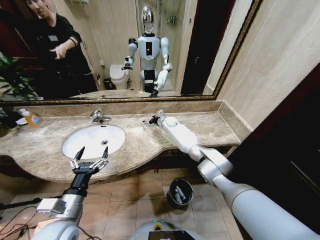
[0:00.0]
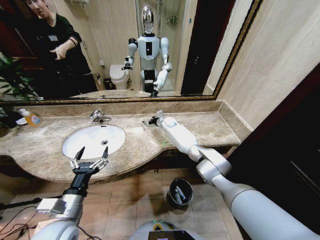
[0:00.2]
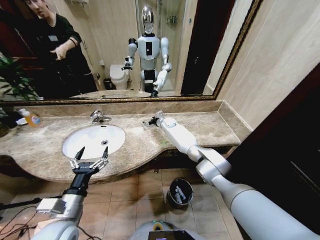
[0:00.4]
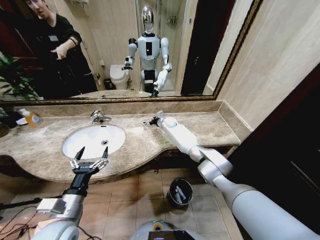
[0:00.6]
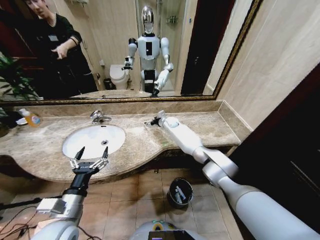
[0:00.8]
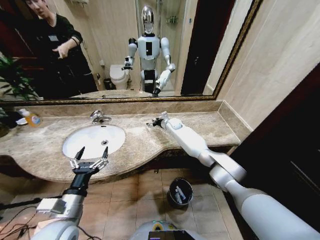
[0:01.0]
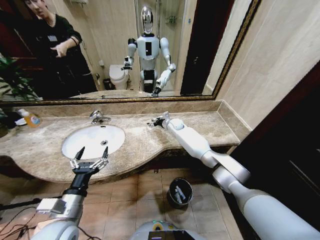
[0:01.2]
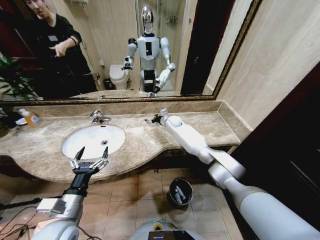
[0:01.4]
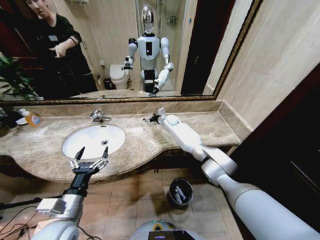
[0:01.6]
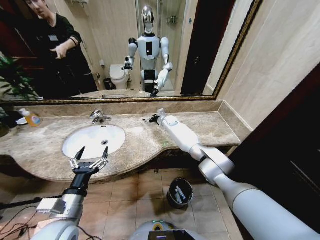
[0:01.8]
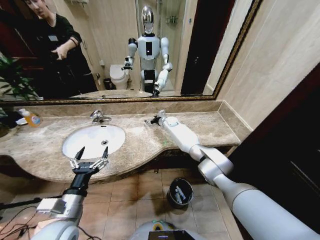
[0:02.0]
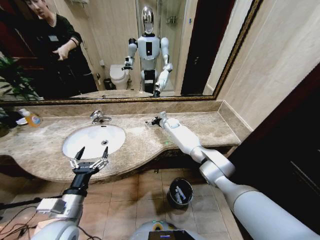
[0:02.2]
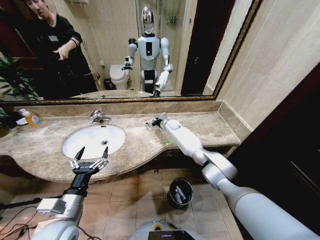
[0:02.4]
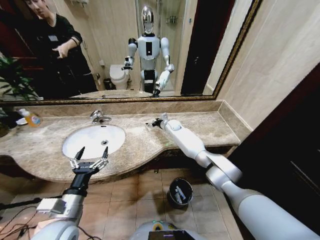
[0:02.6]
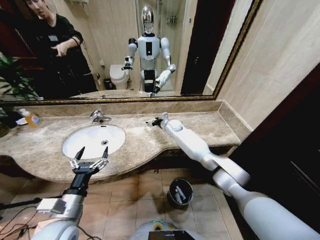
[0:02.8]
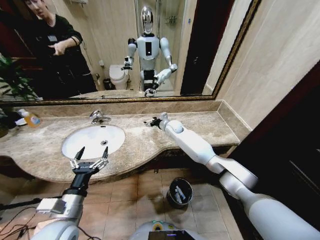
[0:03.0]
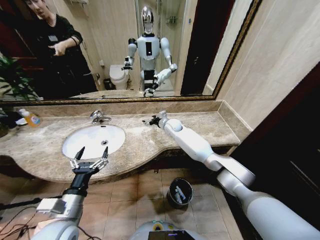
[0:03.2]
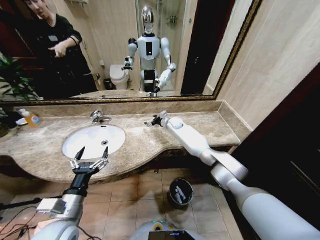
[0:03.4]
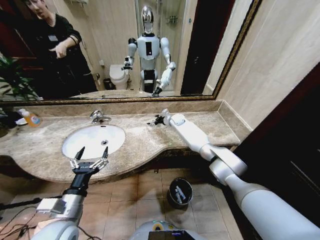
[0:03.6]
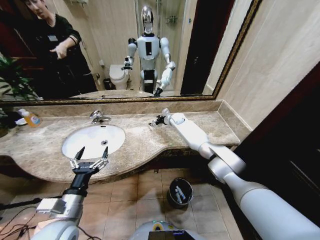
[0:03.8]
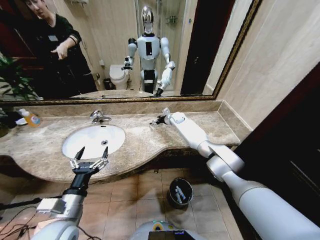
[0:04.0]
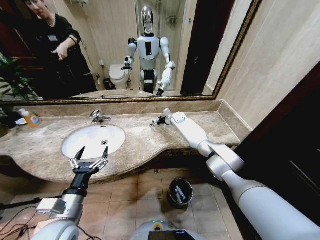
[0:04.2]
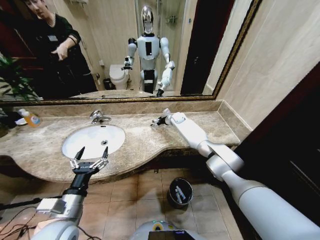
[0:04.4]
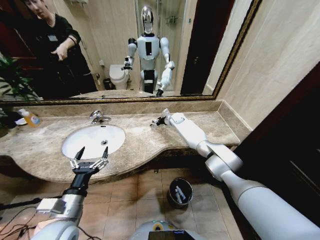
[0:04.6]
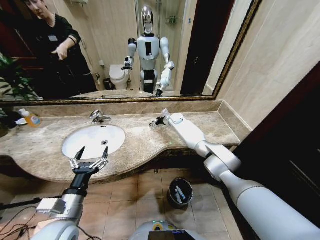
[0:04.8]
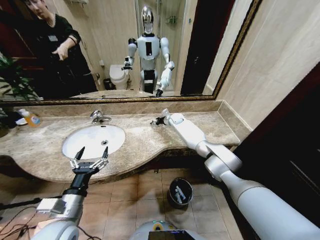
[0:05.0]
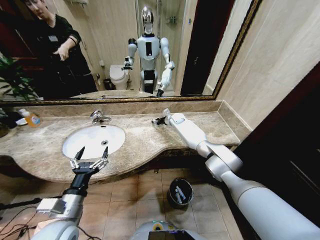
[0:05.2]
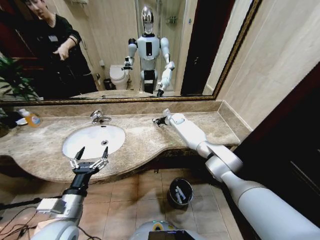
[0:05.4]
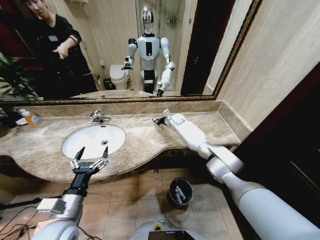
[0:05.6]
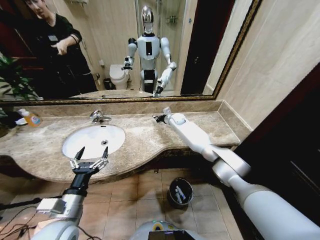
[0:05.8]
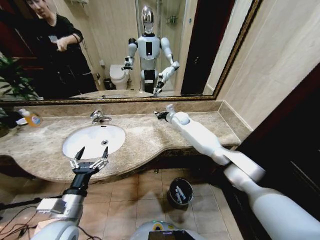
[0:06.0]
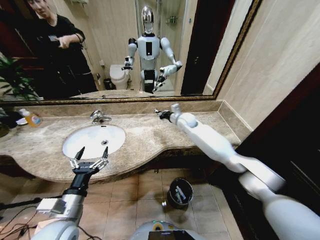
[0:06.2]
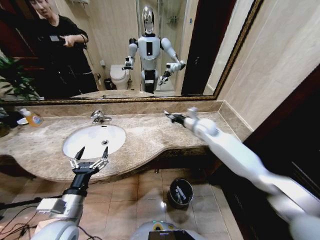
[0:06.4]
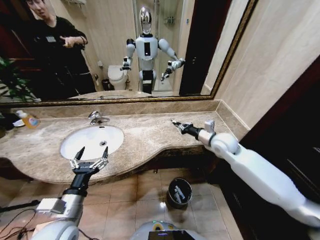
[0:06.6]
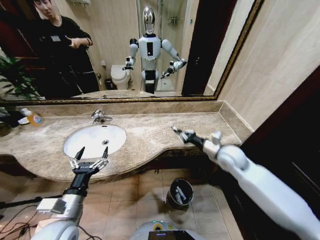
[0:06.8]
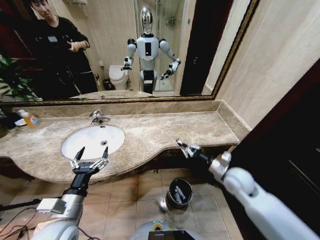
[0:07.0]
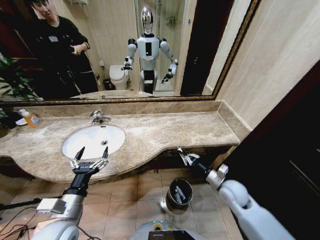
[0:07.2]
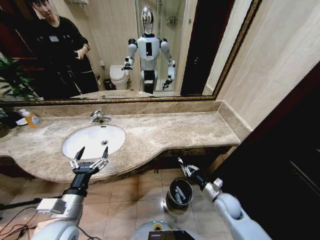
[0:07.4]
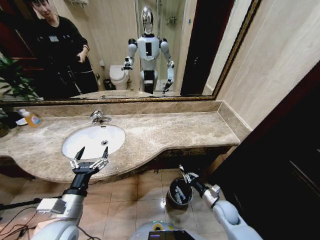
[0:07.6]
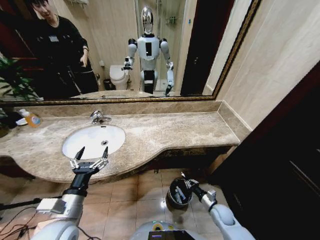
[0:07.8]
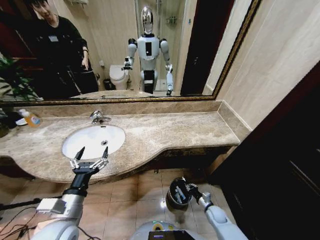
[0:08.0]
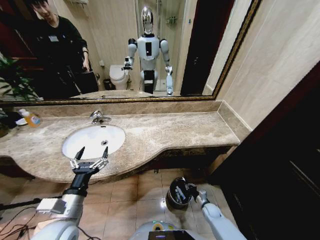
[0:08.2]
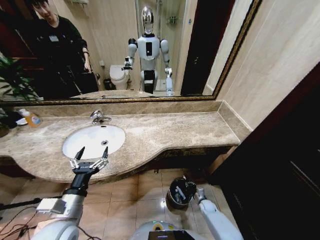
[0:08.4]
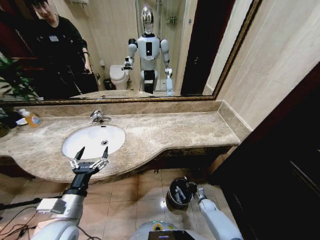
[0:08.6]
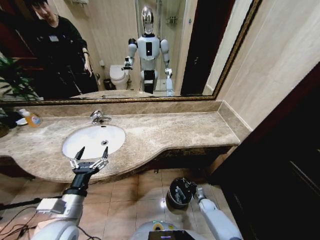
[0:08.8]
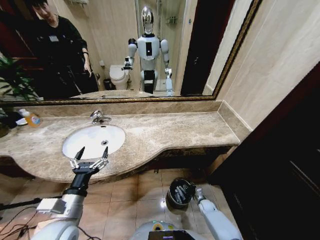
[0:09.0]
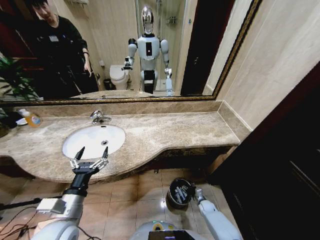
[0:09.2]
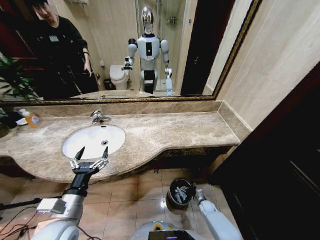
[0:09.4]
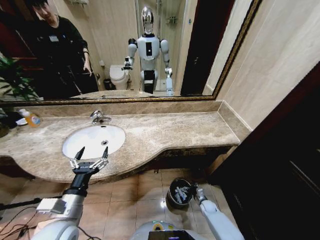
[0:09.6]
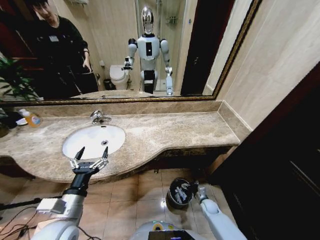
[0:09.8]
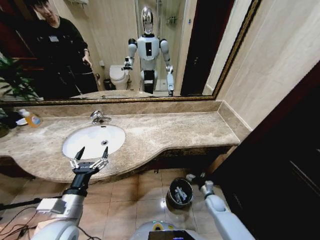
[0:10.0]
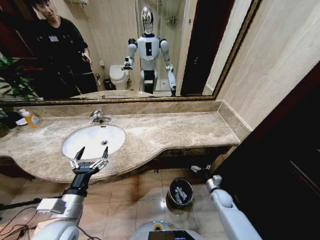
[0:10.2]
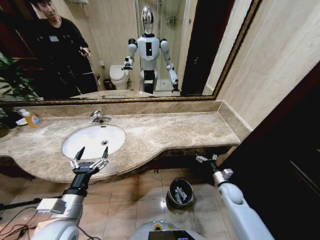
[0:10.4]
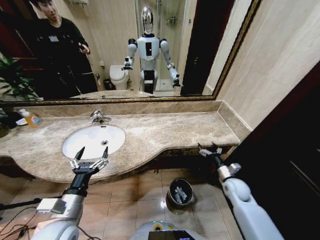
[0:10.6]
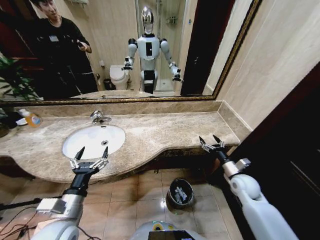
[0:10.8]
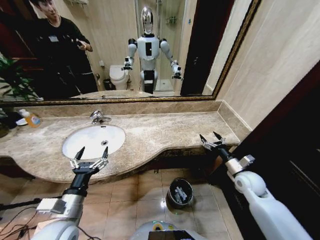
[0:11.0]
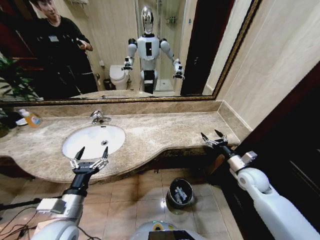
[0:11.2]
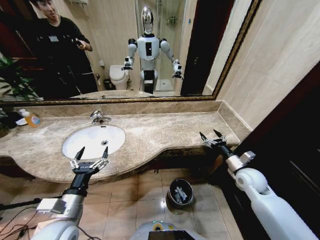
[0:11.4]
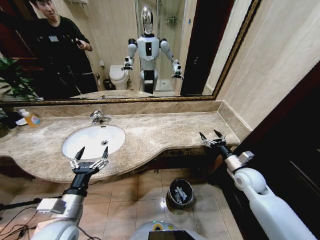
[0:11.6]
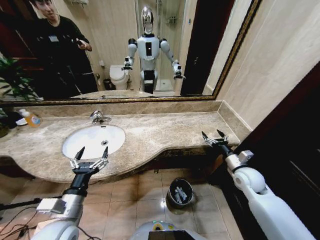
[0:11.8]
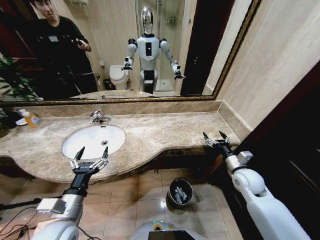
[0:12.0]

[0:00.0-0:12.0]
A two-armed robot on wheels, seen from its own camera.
Task of the whole recording: Pick up the trash from the sink and place it in the trash bin.
0:00.0 to 0:01.6: There are only small adjustments of the grippers.
0:01.6 to 0:03.0: The right gripper heads backward, covering roughly 5 cm.
0:03.0 to 0:04.4: The right gripper is displaced forward by about 10 cm.
0:04.4 to 0:06.0: The right gripper moves backward, about 5 cm, and closes up.
0:06.0 to 0:07.6: The right gripper heads backward, downward and to the right, covering roughly 50 cm.
0:07.6 to 0:09.0: The right gripper shifts roughly 20 cm downward, and opens its fingers.
0:09.0 to 0:10.4: The right gripper heads upward, covering about 20 cm, and opens up.
0:10.4 to 0:12.0: The right gripper moves upward, approximately 15 cm.

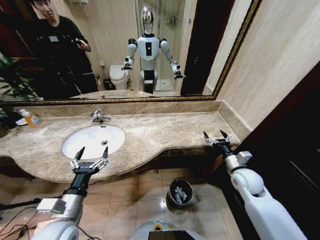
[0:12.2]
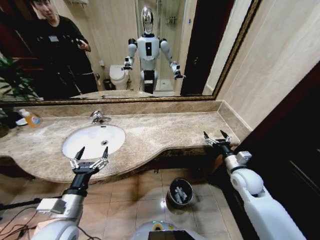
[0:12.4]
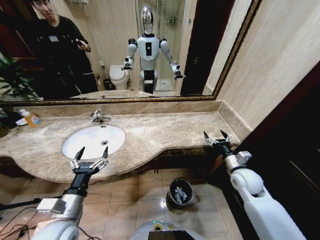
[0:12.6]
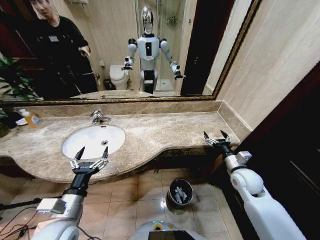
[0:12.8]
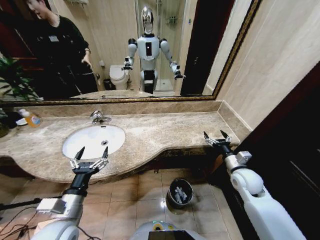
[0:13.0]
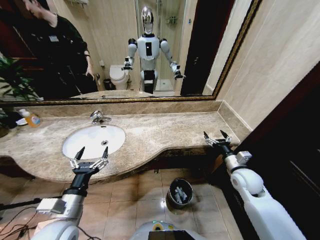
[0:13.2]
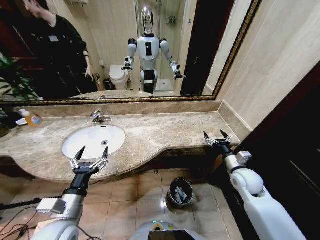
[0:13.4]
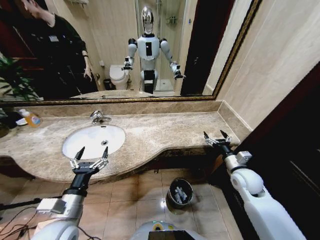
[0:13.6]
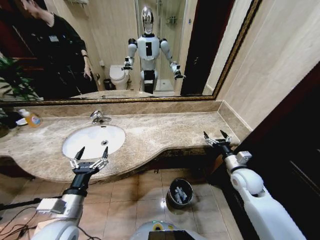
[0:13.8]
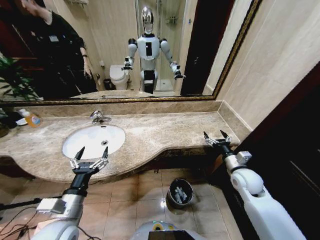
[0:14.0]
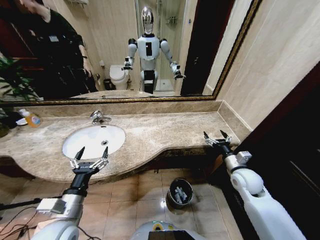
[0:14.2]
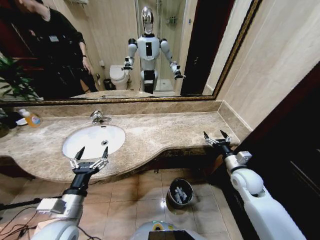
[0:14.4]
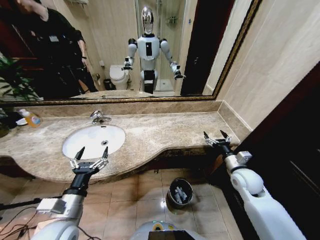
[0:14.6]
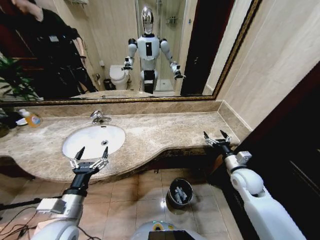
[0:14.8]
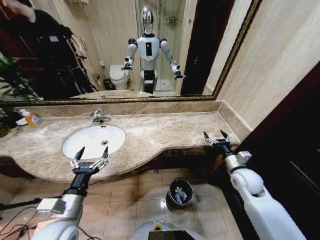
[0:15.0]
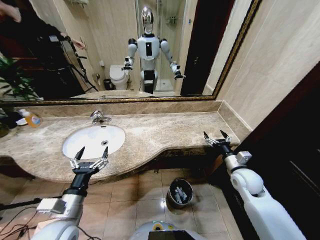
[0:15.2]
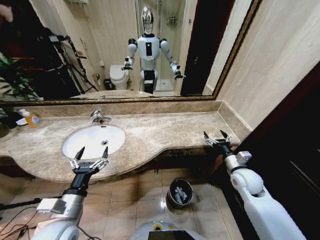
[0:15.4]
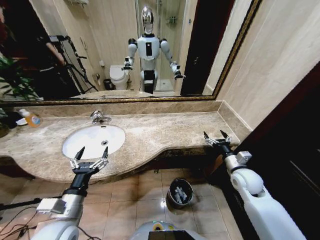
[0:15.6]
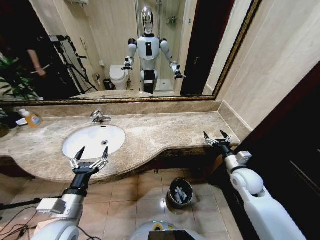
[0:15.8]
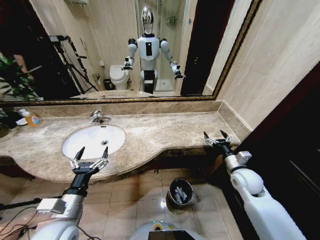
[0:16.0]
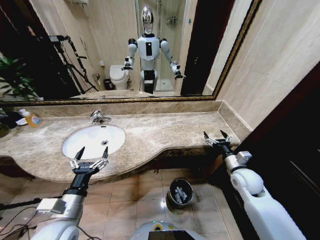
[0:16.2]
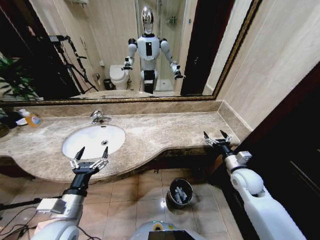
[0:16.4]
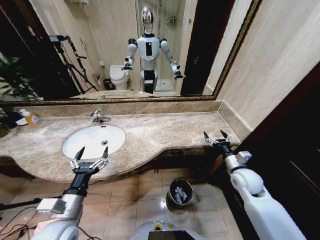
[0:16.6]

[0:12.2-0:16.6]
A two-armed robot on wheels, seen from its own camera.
Task of the whole recording: Pick up the trash from the sink and place it in the trash bin.
0:12.2 to 0:16.6: The two grippers keep their place.
